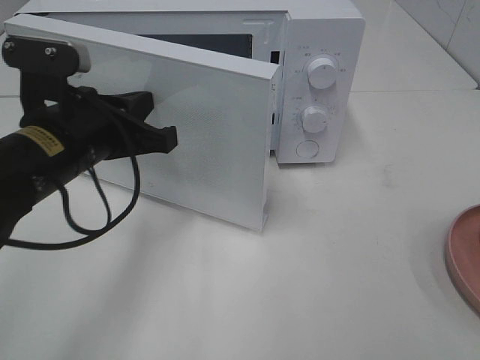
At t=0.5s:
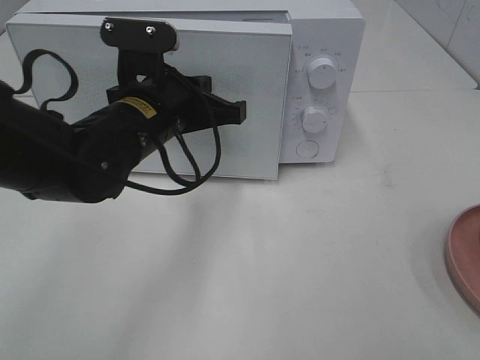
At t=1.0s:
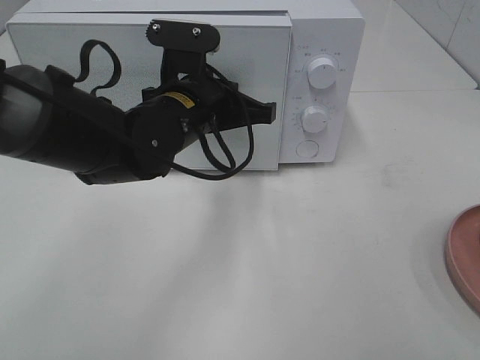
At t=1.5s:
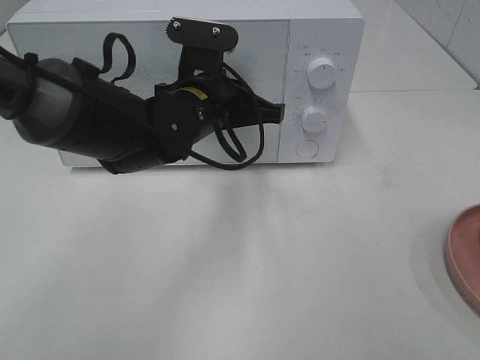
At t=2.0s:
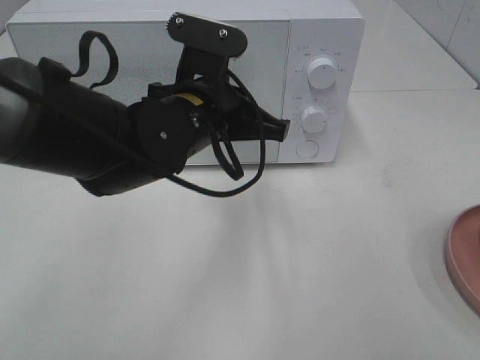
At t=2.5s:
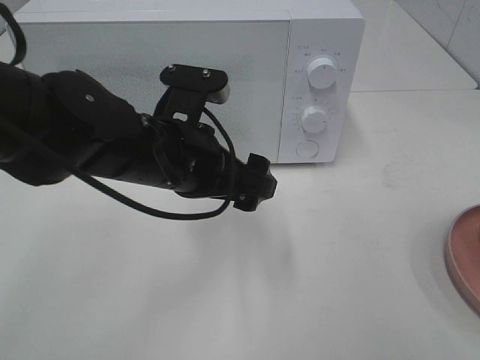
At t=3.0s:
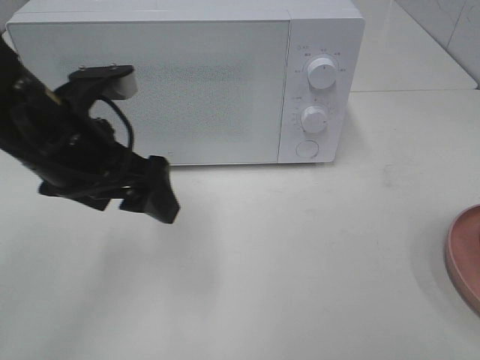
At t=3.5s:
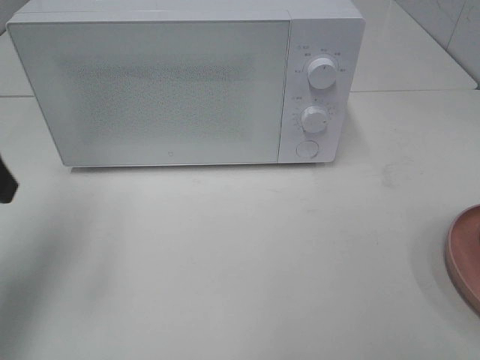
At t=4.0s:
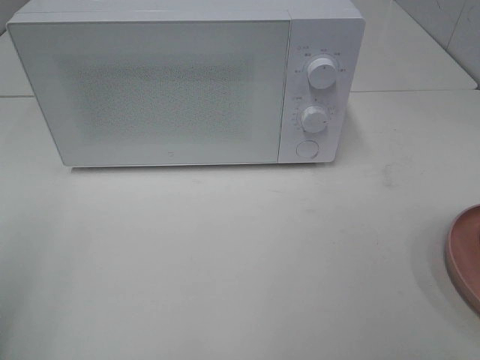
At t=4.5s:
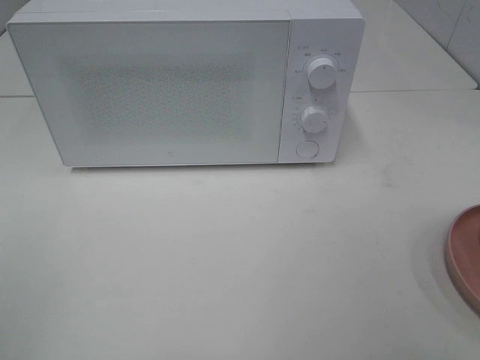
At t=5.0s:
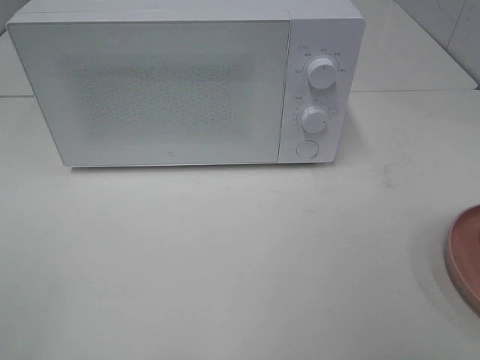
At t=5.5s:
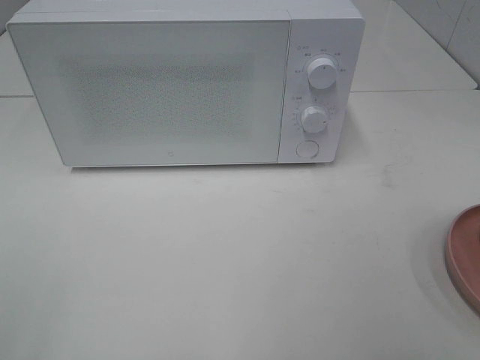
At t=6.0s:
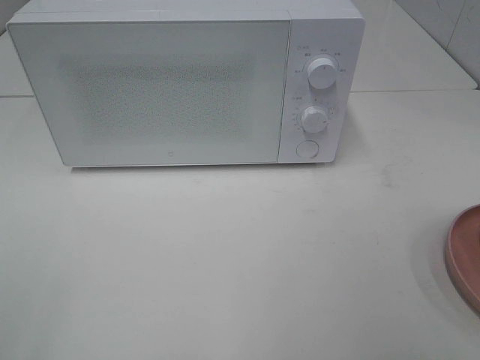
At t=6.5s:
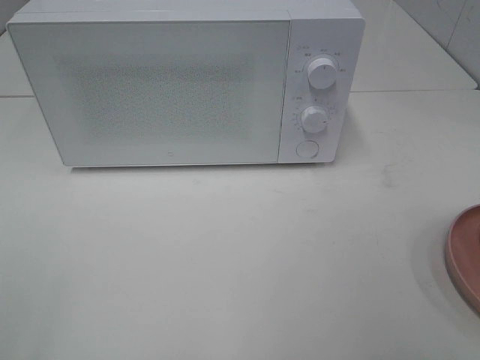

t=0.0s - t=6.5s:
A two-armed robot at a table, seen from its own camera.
Task of the whole recording: Heat the burger.
t=0.0s - t=2.0s: The left gripper travels to the right by some 10 cm.
t=2.0s - t=4.5s: The left gripper heads to the left and backward, covering some 40 cm, and opens.
